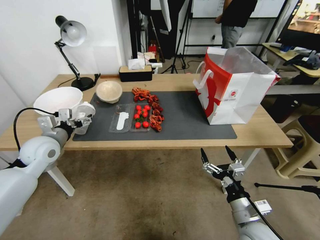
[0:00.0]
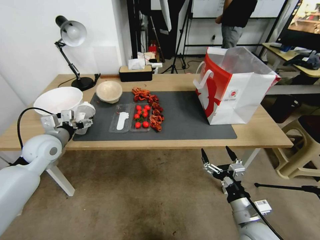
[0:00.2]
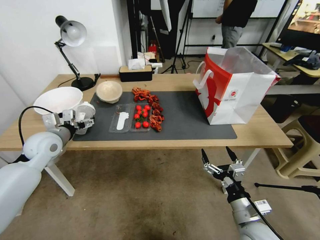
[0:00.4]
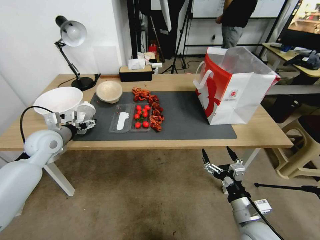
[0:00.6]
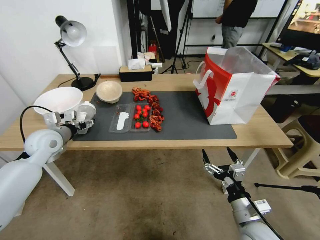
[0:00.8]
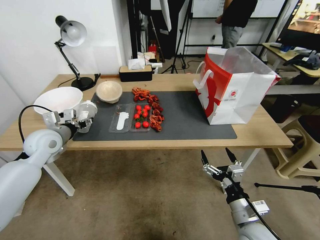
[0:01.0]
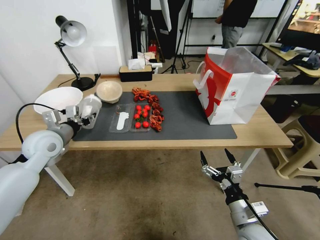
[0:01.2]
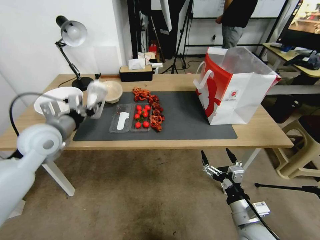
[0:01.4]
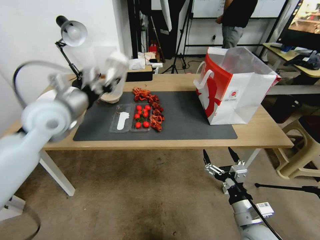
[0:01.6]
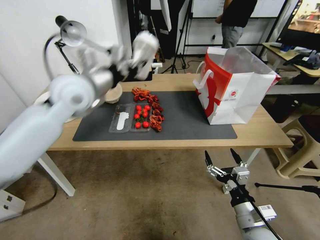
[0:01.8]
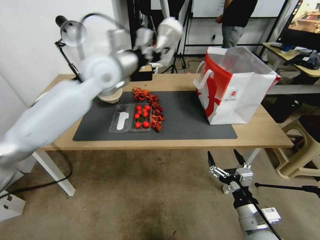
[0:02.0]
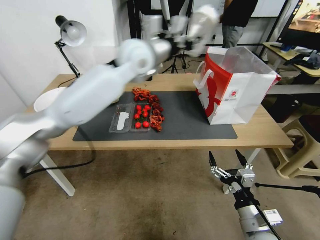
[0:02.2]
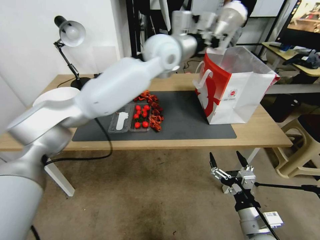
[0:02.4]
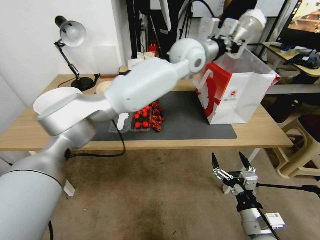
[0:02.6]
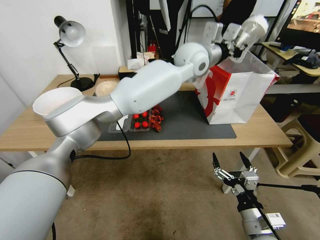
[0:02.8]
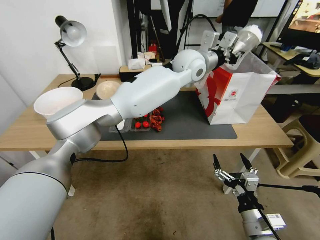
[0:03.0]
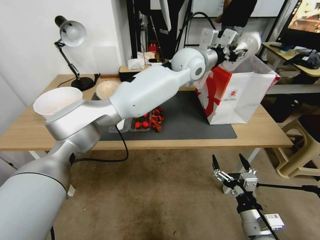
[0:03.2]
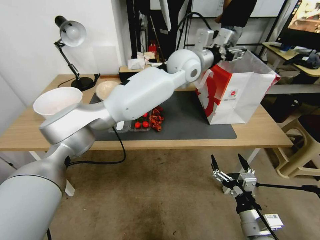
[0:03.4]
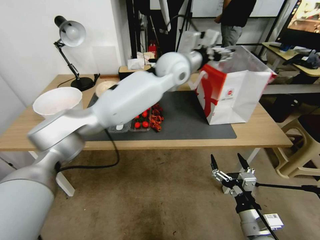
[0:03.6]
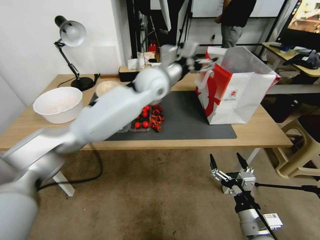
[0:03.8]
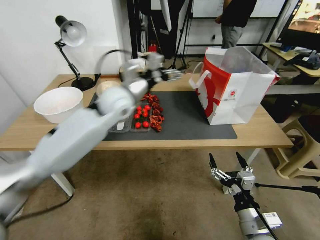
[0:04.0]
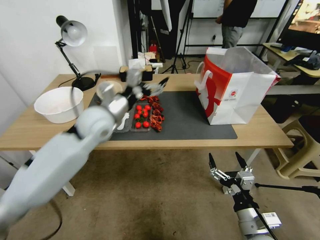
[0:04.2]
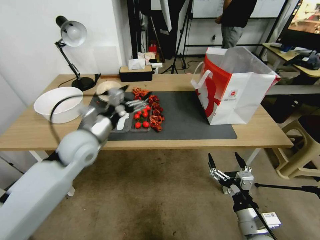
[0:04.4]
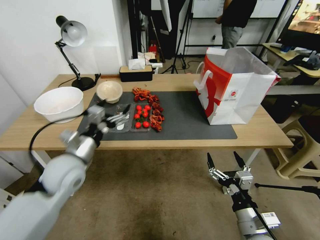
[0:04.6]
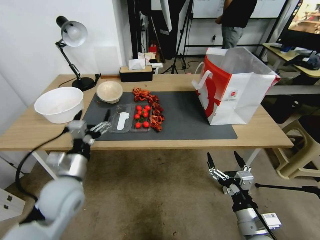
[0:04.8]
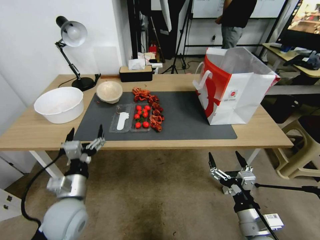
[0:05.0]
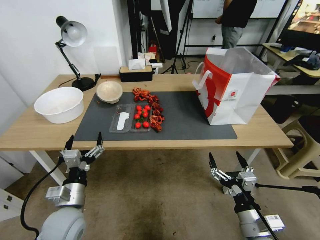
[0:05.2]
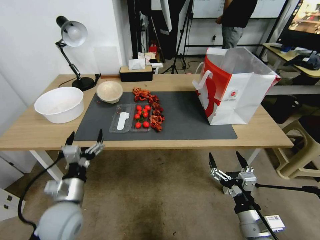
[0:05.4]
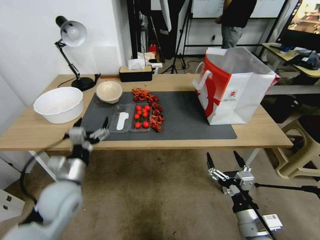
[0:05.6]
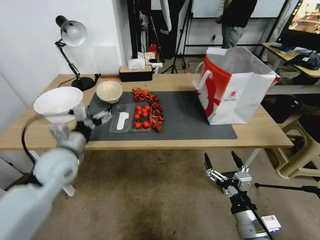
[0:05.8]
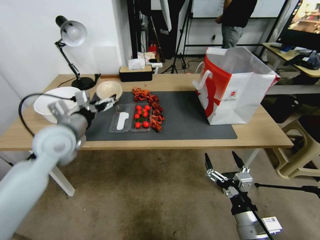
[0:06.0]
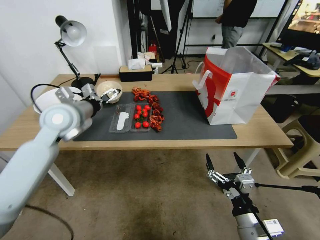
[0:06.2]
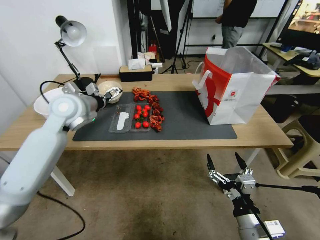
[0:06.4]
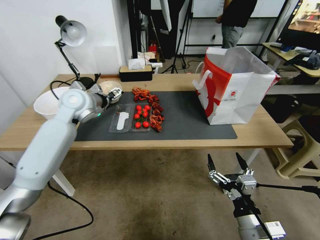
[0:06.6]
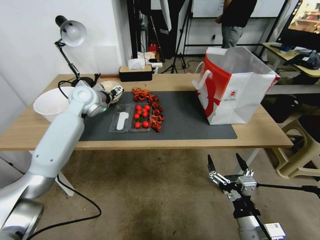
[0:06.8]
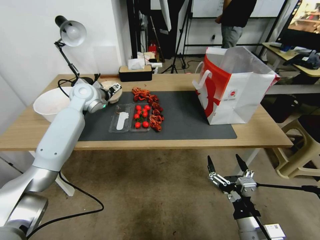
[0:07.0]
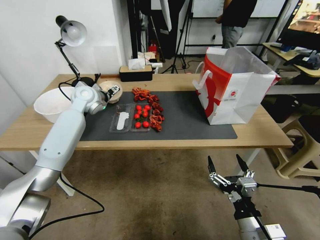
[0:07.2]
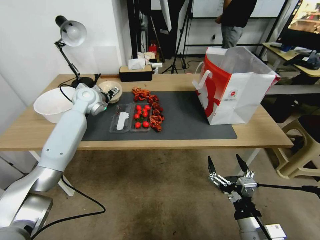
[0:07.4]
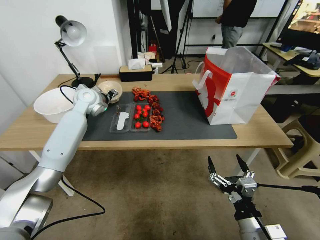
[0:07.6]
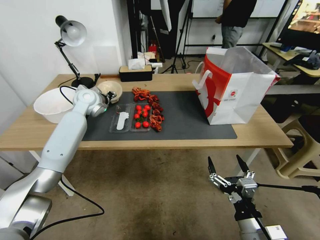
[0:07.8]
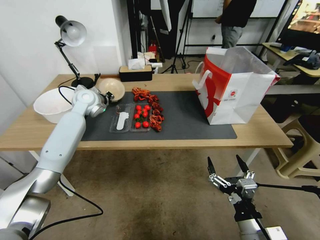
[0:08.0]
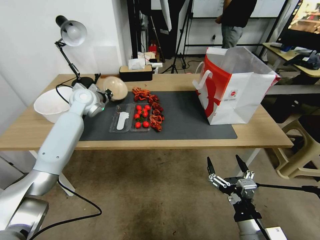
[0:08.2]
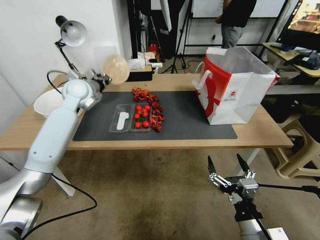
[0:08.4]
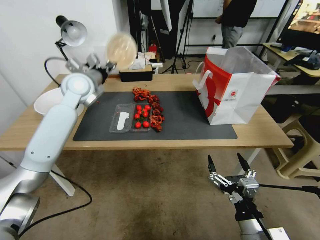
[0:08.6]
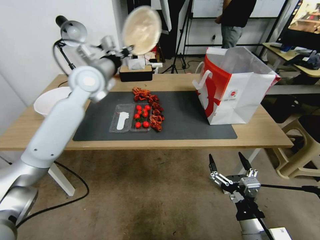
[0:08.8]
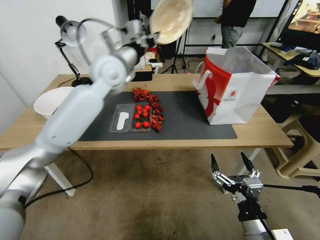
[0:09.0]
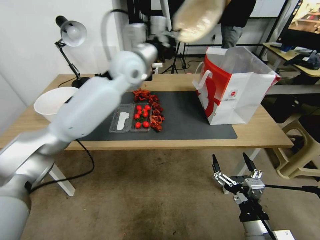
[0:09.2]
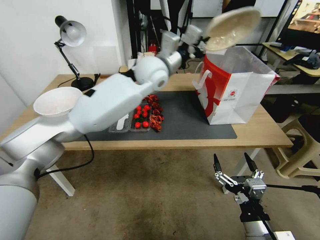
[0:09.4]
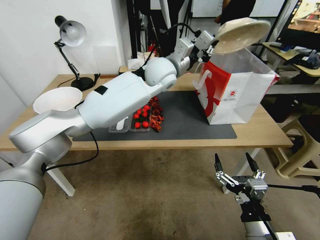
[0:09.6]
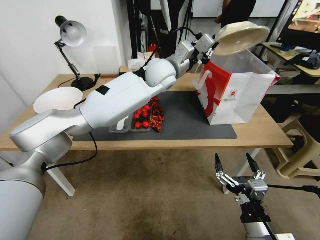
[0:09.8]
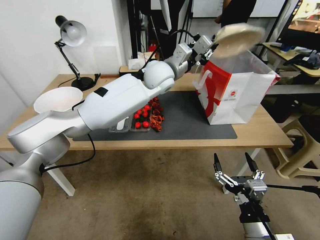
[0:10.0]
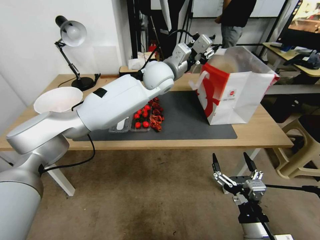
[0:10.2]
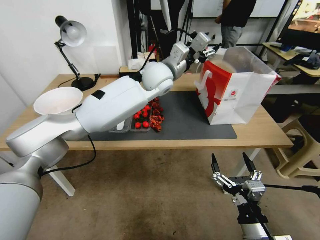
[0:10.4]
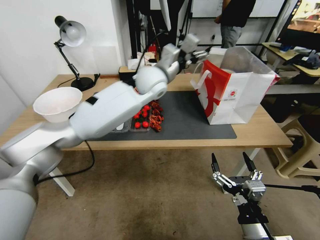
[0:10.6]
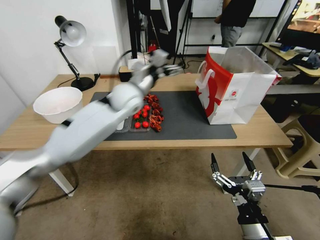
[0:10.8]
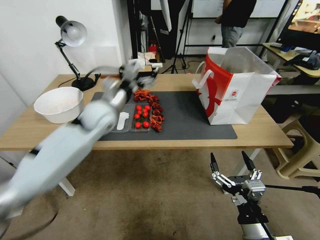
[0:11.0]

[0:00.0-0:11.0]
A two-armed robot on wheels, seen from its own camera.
0:00.0 to 0:01.6: The left gripper moves upward and to the right, about 15 cm, and closes.
0:01.6 to 0:03.2: The left gripper is displaced to the right and forward by roughly 40 cm.
0:03.2 to 0:04.8: The left gripper travels to the left, backward and downward by some 50 cm, and opens up.
0:04.8 to 0:06.2: The left gripper shifts approximately 20 cm forward and upward.
0:06.2 to 0:07.8: The left gripper travels forward by approximately 15 cm, and closes up.
0:07.8 to 0:09.4: The left gripper heads to the right and upward, covering some 30 cm, and closes.
0:09.4 to 0:11.0: The left gripper heads downward, covering roughly 5 cm, and opens.

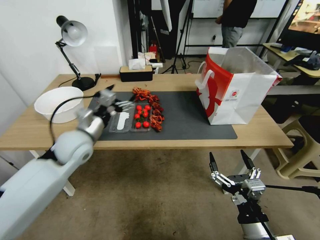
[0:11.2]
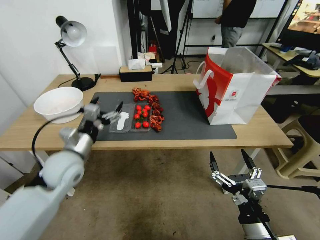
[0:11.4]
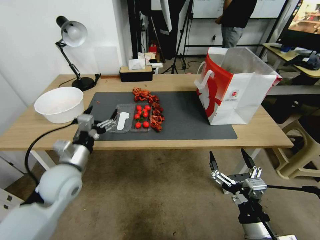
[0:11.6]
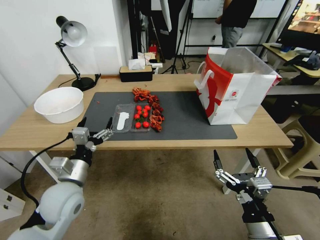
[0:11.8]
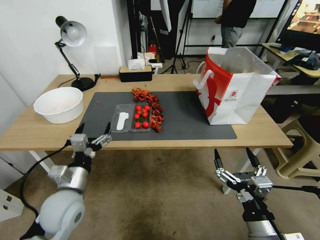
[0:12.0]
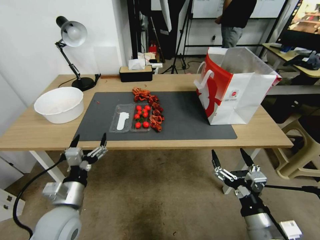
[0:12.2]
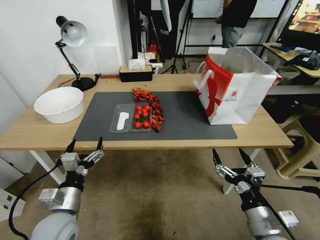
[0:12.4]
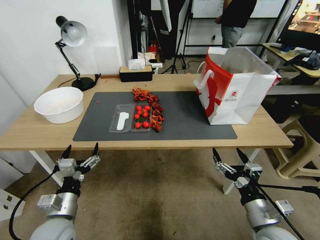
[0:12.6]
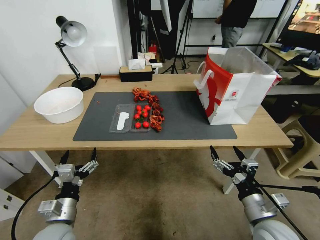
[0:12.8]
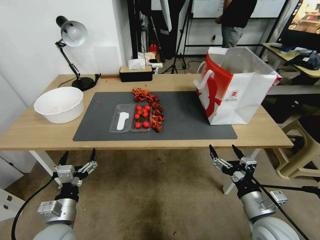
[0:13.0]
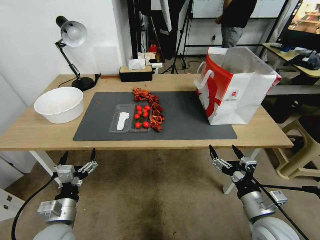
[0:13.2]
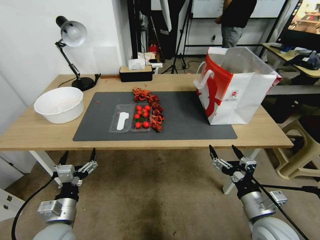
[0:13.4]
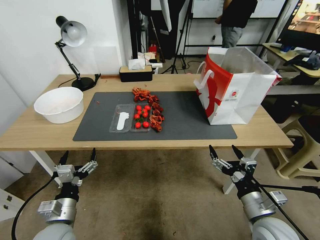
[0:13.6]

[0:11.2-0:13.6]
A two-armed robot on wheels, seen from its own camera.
0:11.2 to 0:12.4: The left gripper heads backward and downward, covering approximately 35 cm.
0:12.4 to 0:13.6: There are only small adjustments of the grippers.

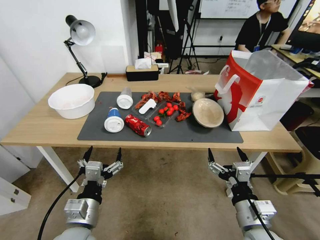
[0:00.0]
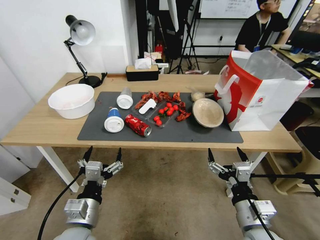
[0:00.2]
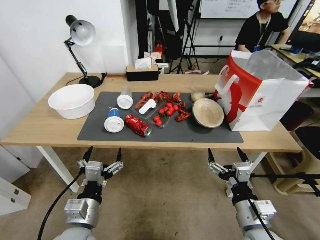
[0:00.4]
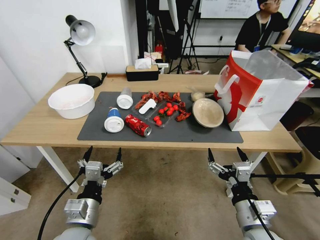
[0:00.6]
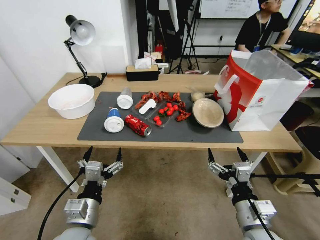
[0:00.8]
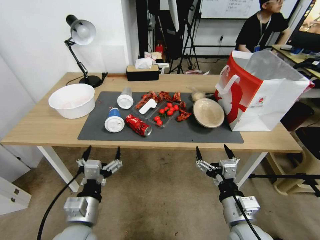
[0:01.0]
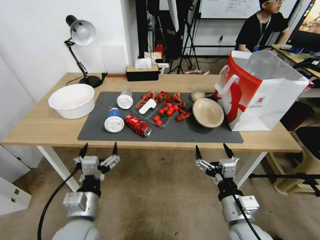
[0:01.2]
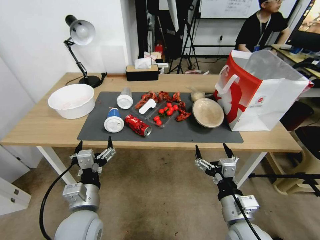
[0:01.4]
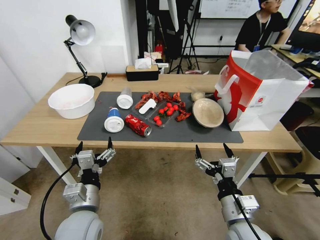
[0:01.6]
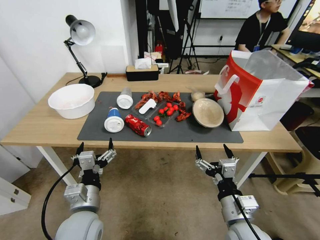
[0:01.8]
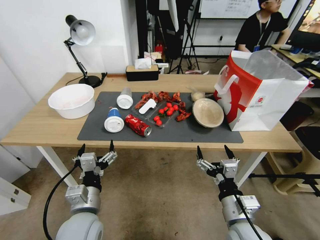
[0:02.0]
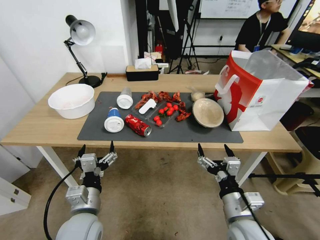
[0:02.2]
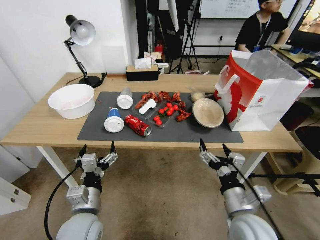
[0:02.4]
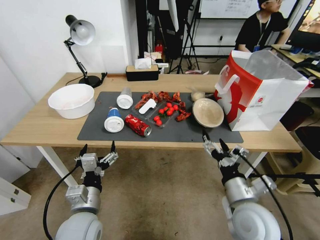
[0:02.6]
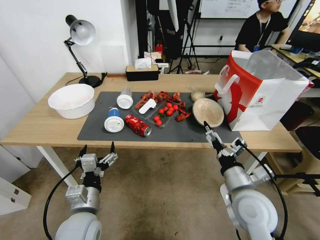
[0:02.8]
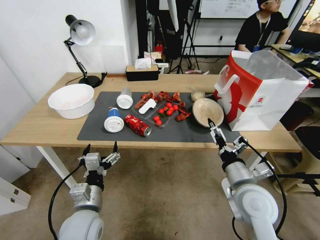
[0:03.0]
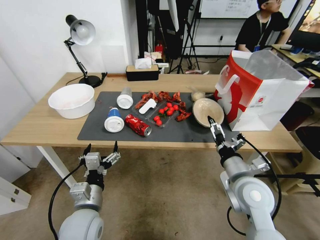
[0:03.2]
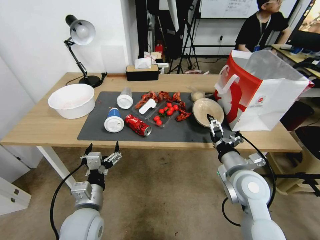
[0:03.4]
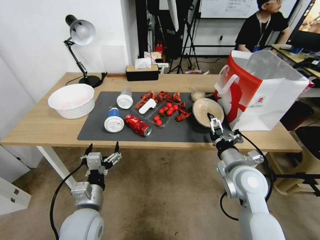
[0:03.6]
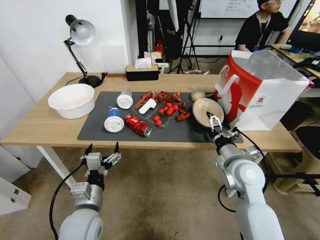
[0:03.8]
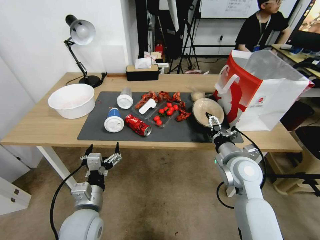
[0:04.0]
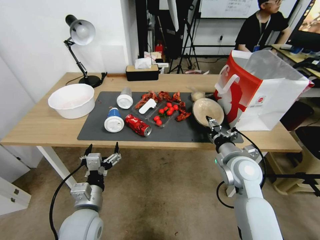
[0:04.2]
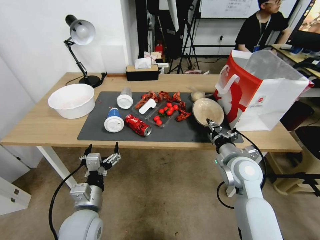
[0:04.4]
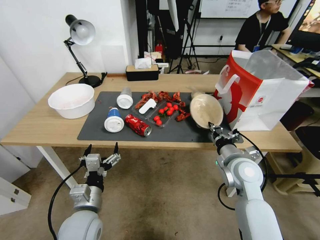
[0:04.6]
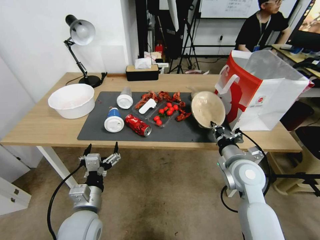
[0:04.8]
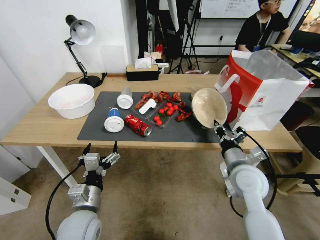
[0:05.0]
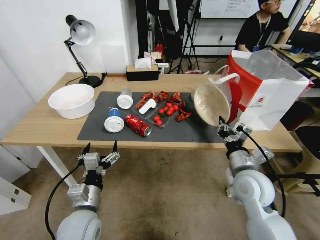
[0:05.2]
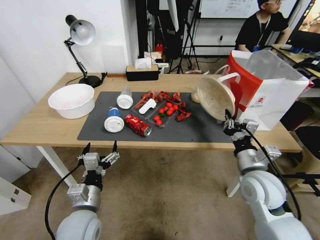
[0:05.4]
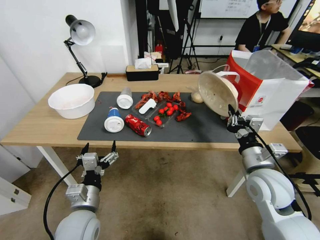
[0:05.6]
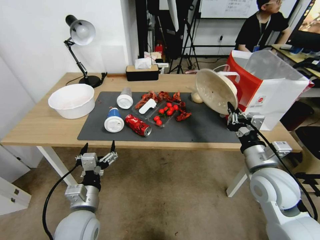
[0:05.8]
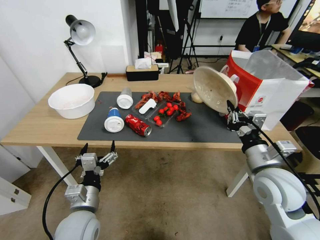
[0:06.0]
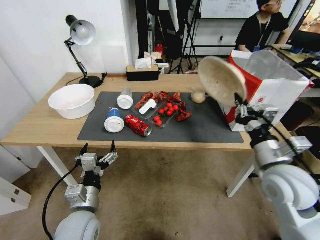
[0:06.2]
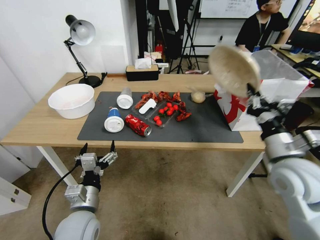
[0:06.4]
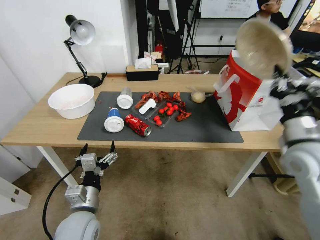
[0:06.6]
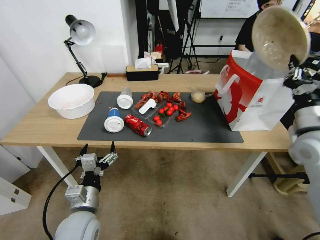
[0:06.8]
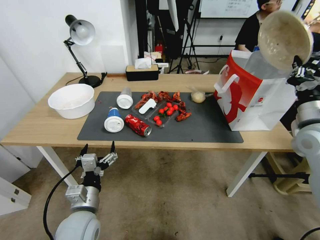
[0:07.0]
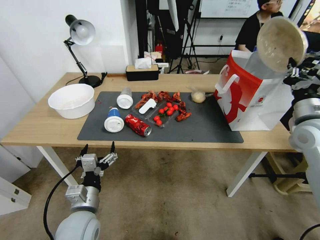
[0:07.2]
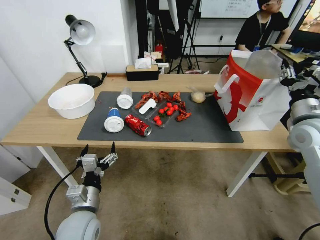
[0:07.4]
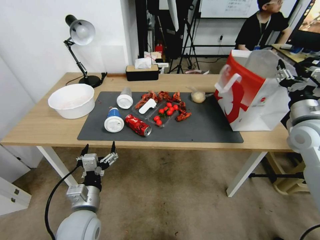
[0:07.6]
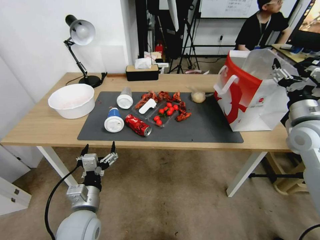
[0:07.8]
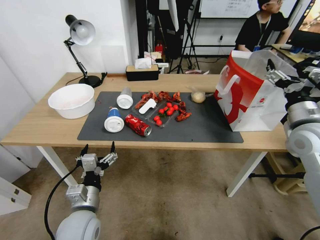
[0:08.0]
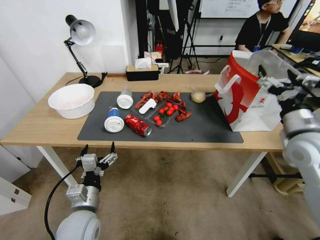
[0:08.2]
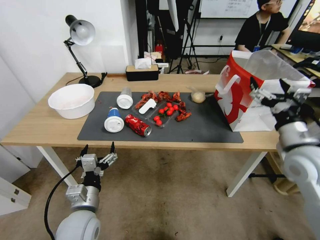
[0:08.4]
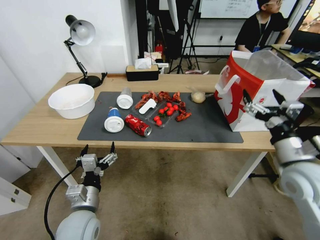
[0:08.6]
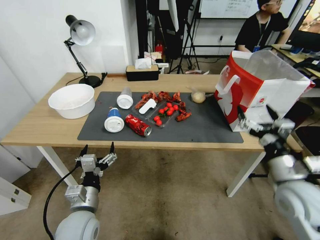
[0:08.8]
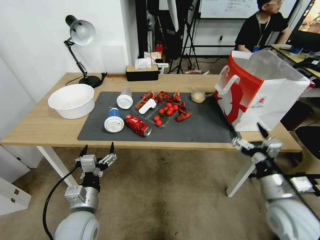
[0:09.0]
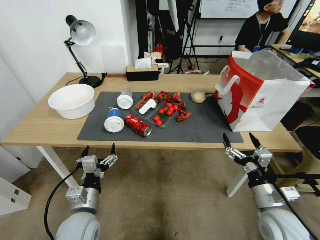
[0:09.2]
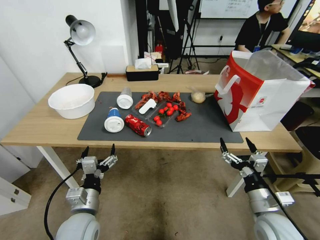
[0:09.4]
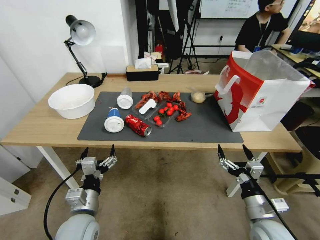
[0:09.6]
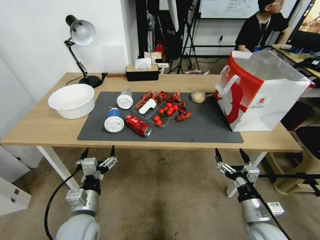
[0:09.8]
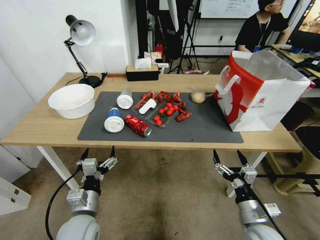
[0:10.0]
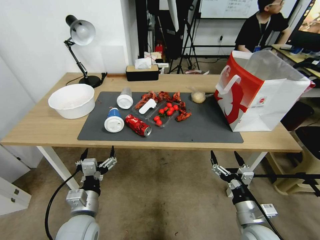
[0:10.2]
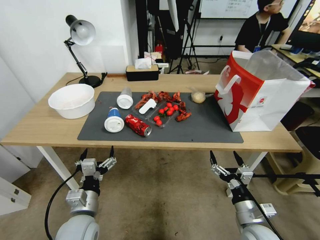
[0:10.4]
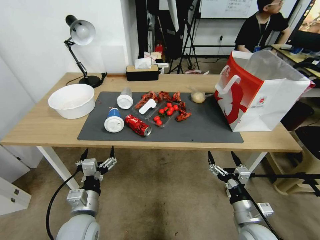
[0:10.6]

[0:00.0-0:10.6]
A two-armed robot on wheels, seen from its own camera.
0:01.6 to 0:03.0: The right gripper is displaced forward by about 10 cm.
0:03.0 to 0:04.6: The right gripper travels forward by approximately 10 cm, and closes its fingers.
0:04.6 to 0:06.0: The right gripper goes approximately 10 cm backward and upward.
0:06.0 to 0:07.6: The right gripper heads to the right, forward and upward, covering roughly 20 cm, and opens up.
0:07.6 to 0:09.0: The right gripper heads backward, downward and to the left, covering roughly 20 cm, and opens its fingers.
0:09.0 to 0:10.6: The right gripper is displaced downward and to the left by about 10 cm.
